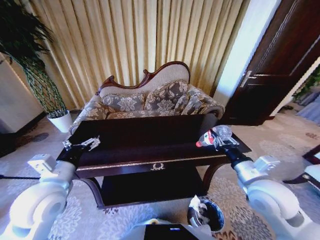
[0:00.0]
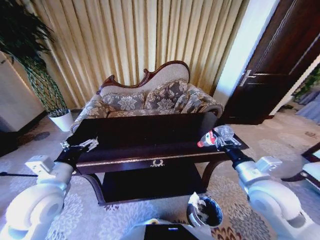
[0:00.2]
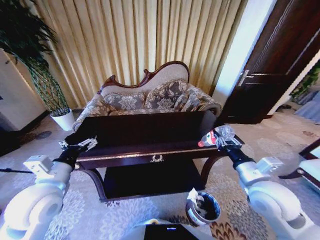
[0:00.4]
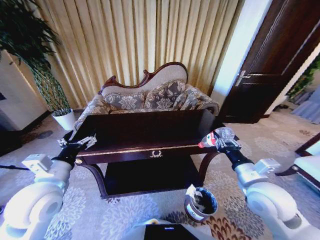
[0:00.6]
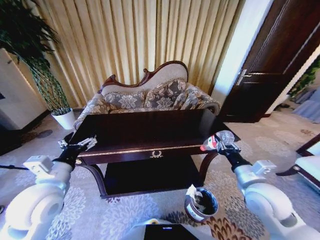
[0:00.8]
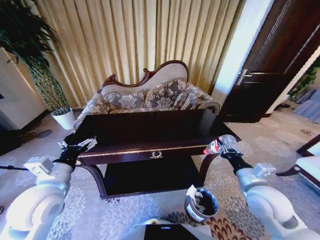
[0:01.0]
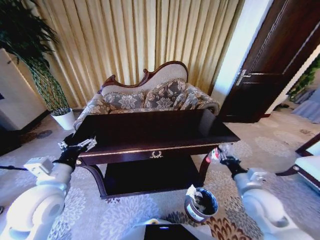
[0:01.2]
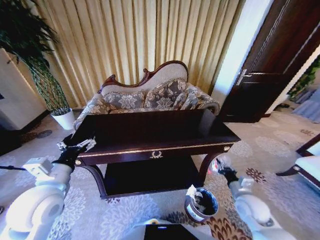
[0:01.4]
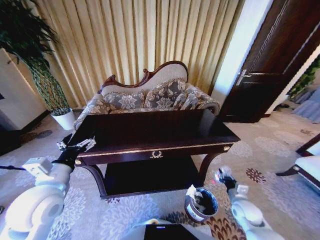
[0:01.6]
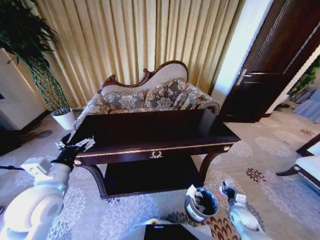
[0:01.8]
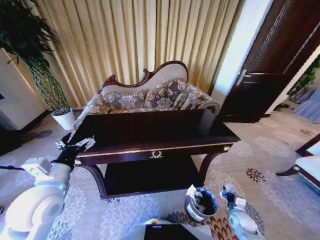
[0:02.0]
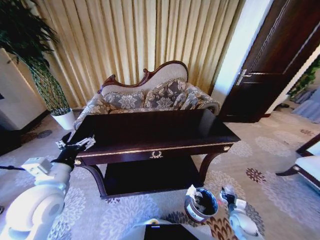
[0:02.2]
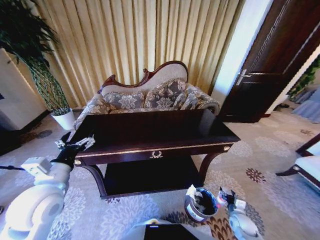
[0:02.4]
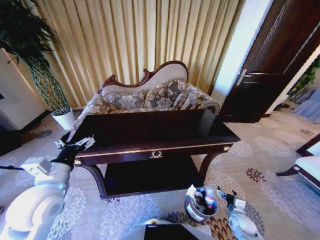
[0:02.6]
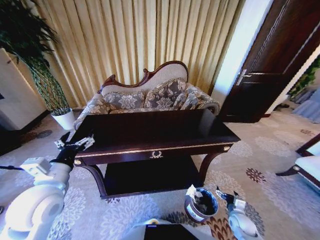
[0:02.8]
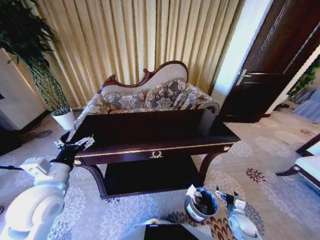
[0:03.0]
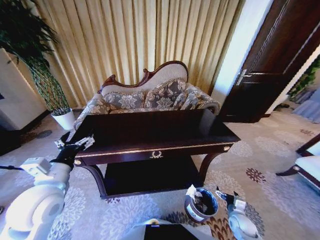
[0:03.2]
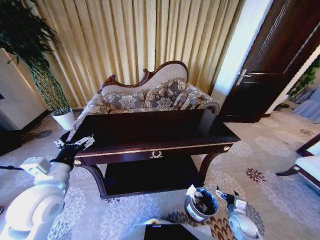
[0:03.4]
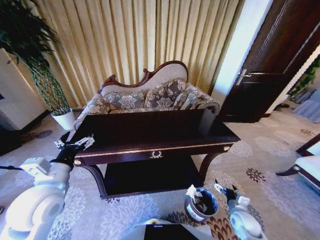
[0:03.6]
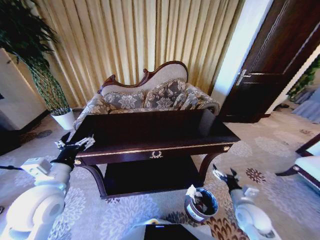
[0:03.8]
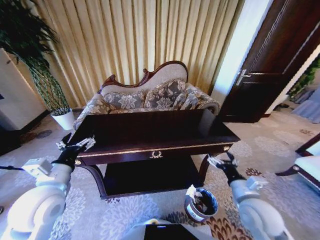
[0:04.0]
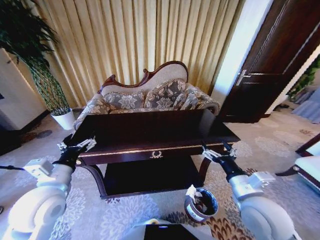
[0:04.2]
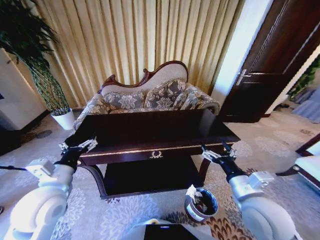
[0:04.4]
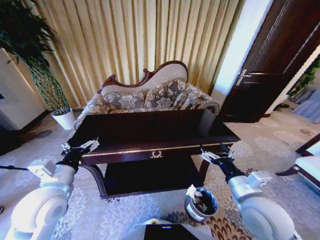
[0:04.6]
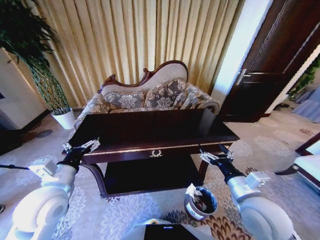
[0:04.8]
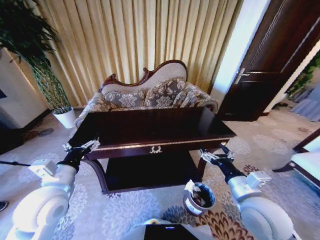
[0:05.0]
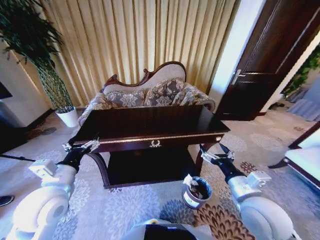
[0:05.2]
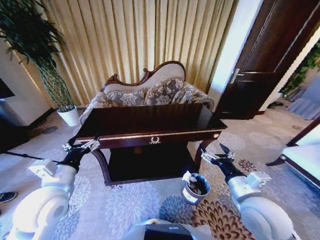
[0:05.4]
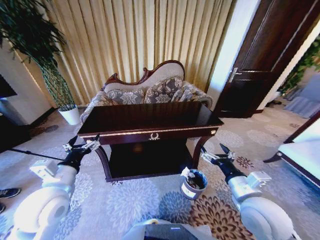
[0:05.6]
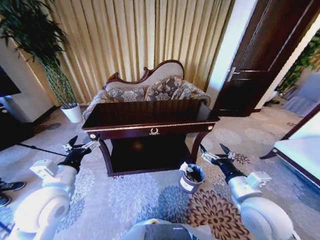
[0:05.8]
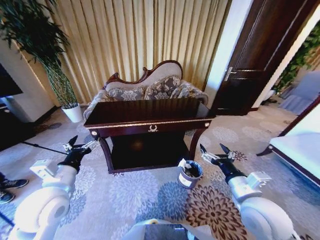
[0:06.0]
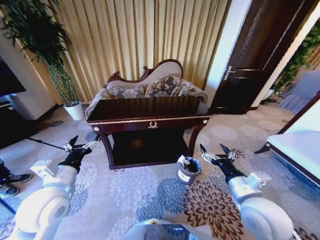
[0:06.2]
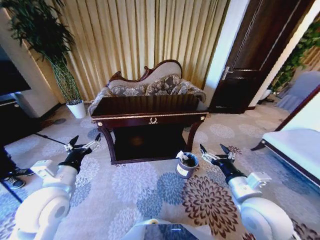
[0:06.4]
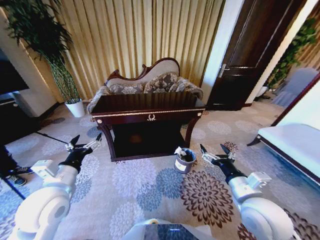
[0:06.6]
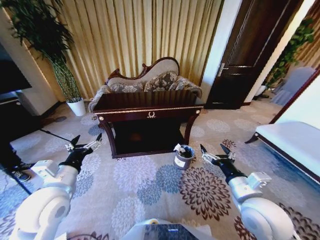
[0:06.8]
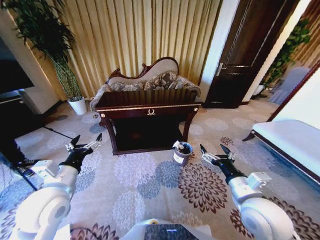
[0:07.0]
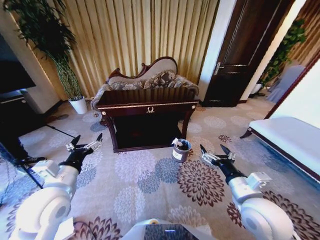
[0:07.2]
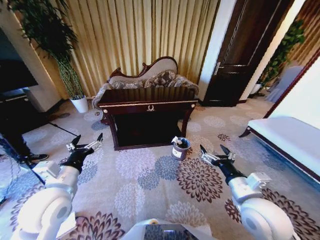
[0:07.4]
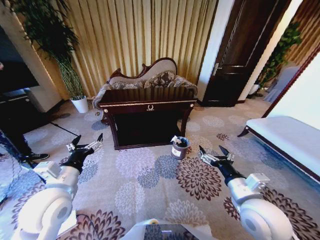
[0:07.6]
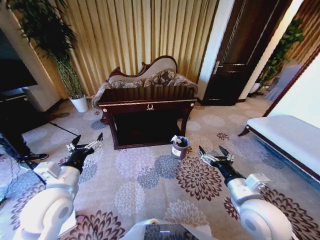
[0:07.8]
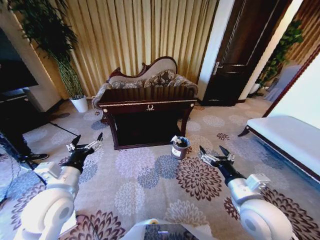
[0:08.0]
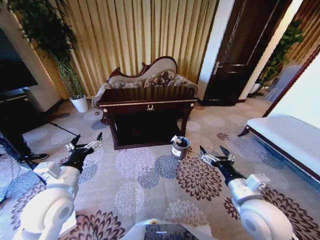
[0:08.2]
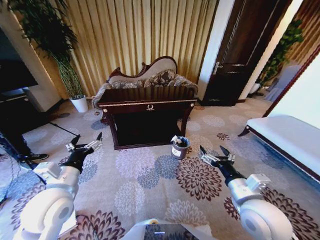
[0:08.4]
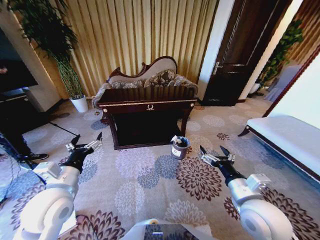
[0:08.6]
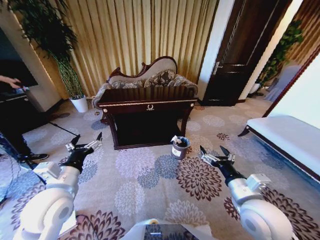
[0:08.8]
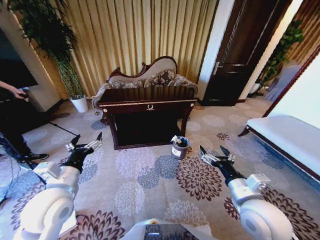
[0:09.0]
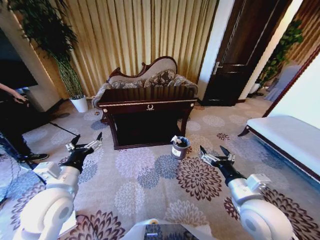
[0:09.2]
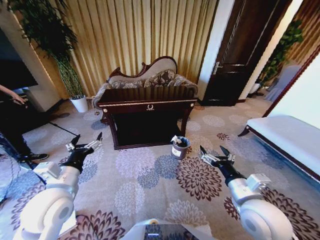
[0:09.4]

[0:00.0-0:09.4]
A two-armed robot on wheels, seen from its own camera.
Task of the whole recording: Move to the front of the table and place the trash on the table into the trash bin.
0:00.0 to 0:01.6: The right gripper is displaced downward by some 25 cm.
0:01.6 to 0:03.2: The right gripper heads downward, covering about 10 cm, and opens its fingers.
0:03.2 to 0:04.8: The right gripper moves upward and to the left, some 35 cm.
0:07.8 to 0:09.4: Neither gripper changes place.

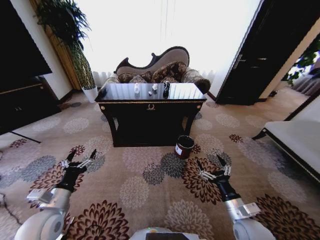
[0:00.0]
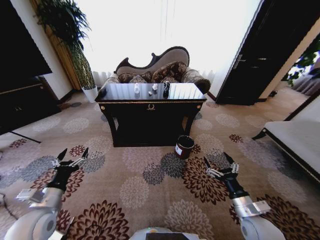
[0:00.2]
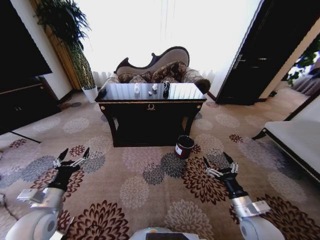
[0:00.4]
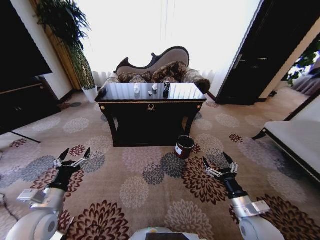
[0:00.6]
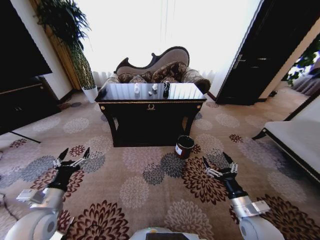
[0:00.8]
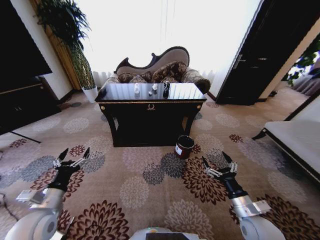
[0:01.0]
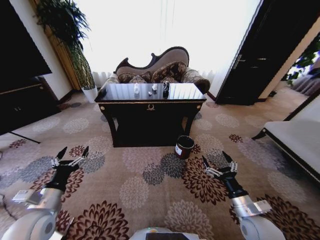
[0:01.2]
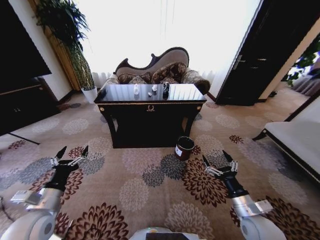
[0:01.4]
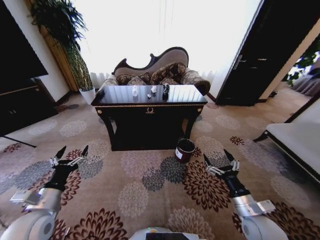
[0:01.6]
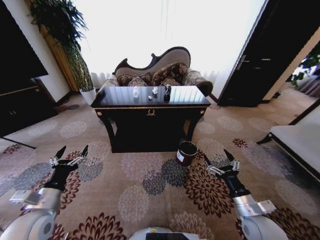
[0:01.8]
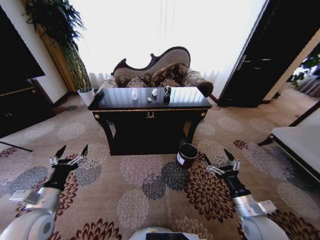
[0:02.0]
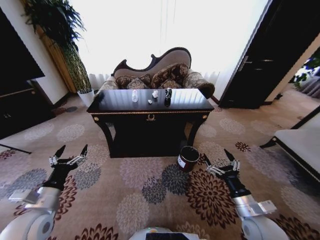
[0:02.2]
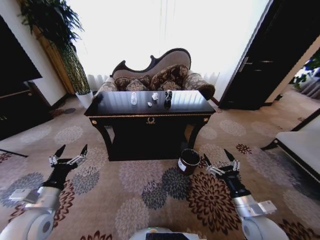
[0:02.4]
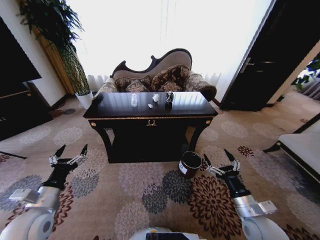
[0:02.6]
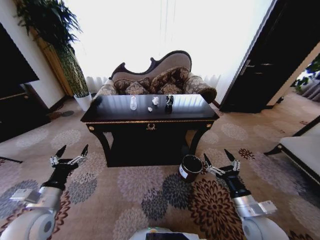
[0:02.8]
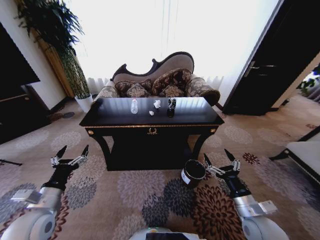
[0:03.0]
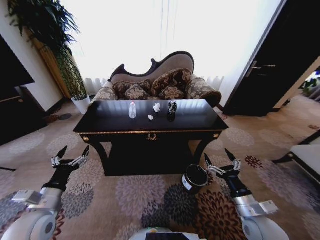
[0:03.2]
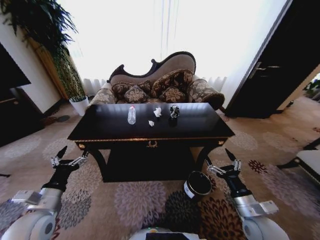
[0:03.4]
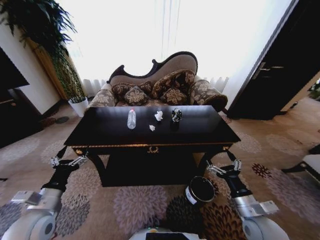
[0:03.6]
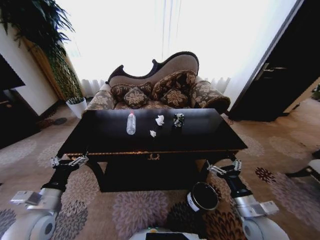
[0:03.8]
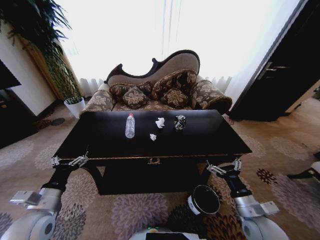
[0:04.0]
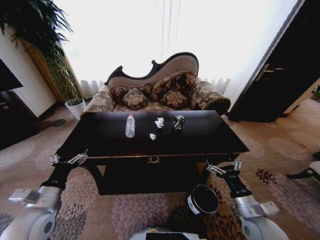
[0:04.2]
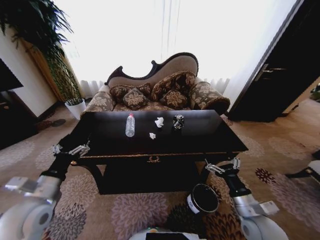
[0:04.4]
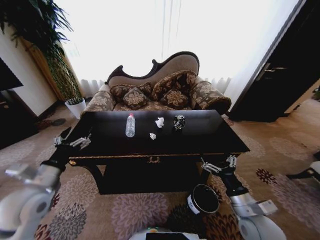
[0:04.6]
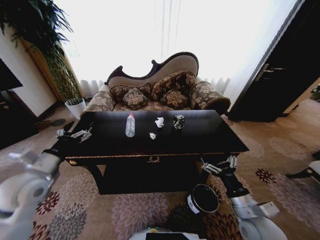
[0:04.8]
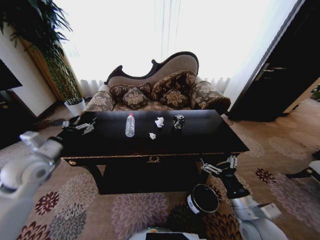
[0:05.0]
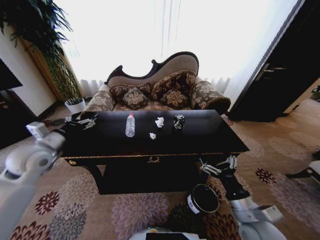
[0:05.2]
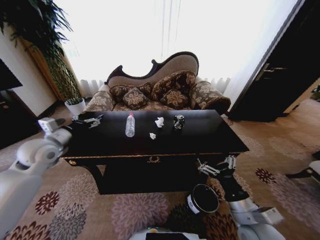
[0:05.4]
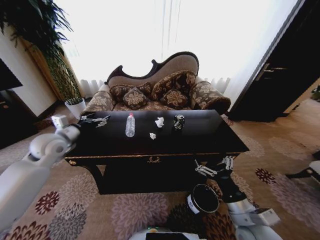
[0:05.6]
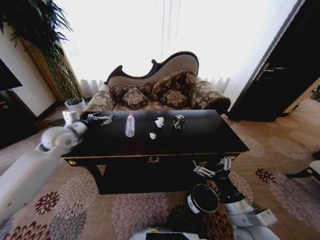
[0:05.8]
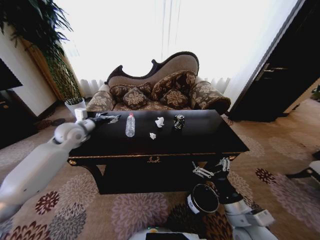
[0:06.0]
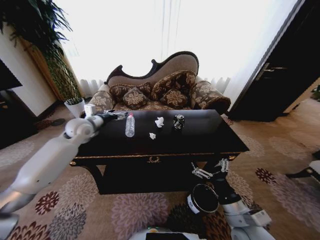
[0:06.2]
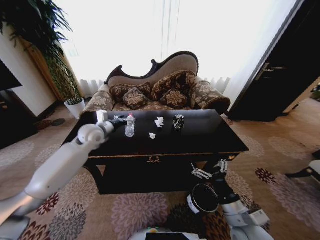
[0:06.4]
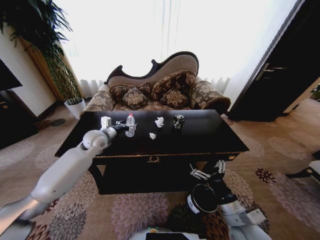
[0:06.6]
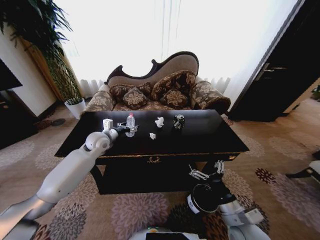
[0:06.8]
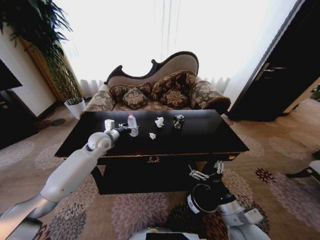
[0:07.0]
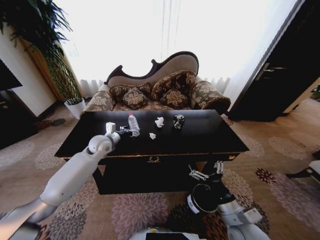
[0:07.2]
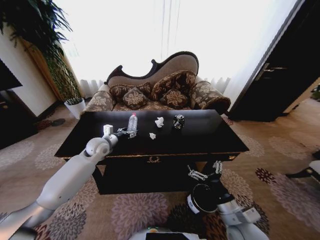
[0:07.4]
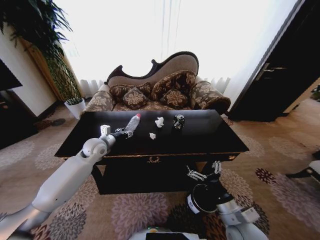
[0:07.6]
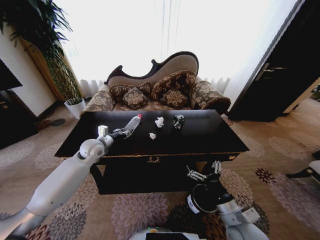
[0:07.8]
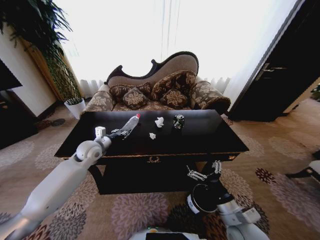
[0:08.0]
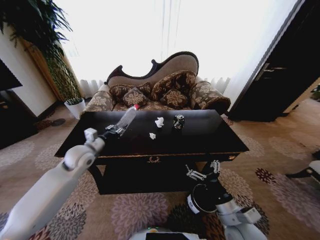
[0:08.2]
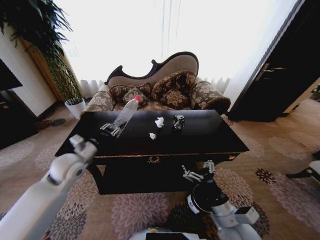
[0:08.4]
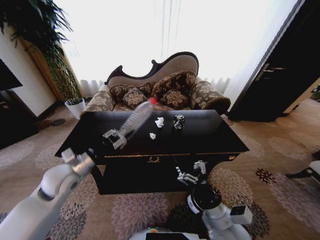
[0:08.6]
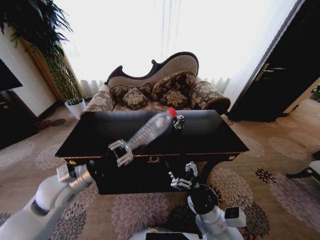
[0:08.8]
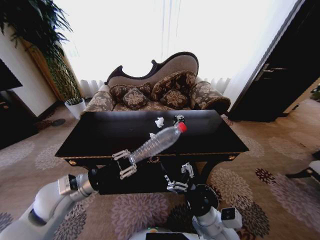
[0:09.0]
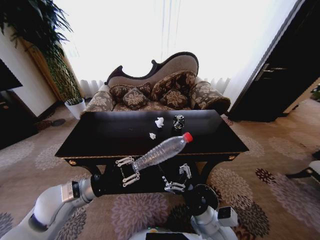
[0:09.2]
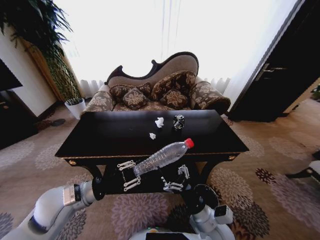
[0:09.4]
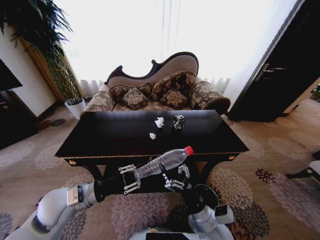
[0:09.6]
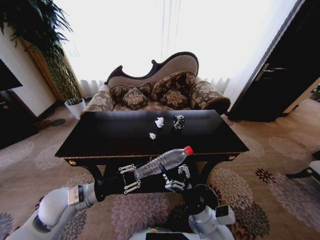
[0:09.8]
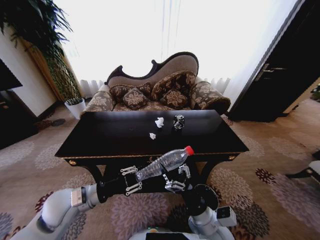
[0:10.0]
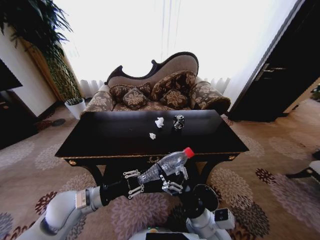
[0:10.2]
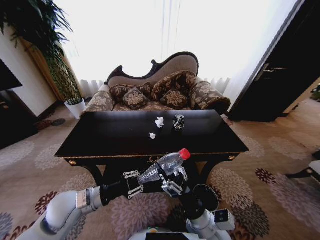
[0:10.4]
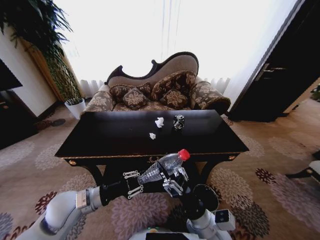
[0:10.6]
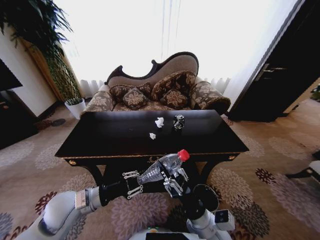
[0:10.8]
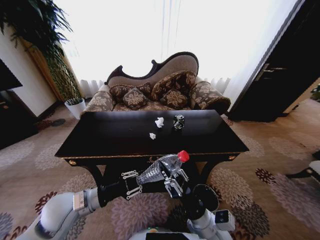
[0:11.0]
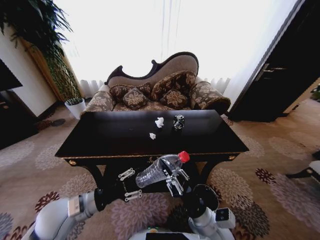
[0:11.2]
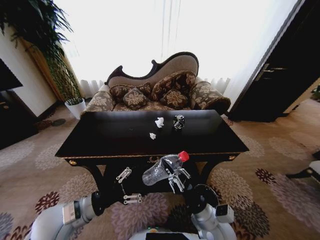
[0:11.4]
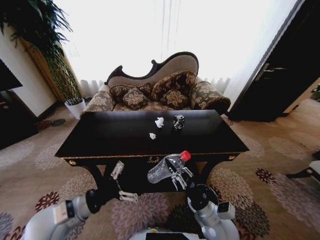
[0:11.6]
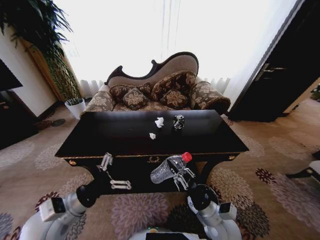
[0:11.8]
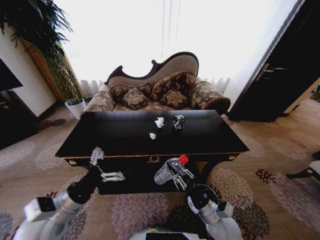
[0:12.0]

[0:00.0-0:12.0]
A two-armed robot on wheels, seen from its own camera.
Task of the whole recording: Move to the front of the table and place the trash on the table into the trash bin.
0:04.4 to 0:06.0: The left gripper goes about 25 cm forward. The right gripper travels to the left by roughly 5 cm.
0:06.0 to 0:07.6: The left gripper heads downward and to the right, covering some 10 cm, and closes.
0:07.6 to 0:09.0: The right gripper shifts roughly 10 cm to the left. Meanwhile the left gripper heads backward, covering approximately 20 cm, and closes up.
0:09.0 to 0:10.4: The grippers move only a little.
0:10.4 to 0:12.0: The left gripper moves approximately 5 cm, and opens its fingers. Meanwhile the right gripper shifts roughly 10 cm to the right and downward, and closes up.

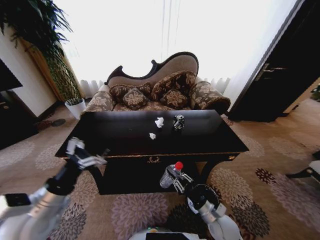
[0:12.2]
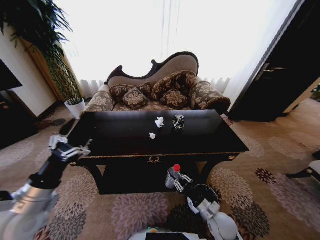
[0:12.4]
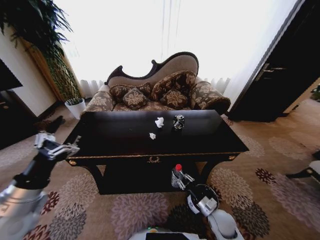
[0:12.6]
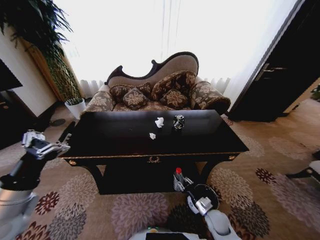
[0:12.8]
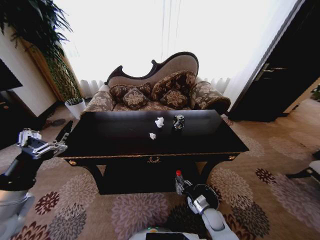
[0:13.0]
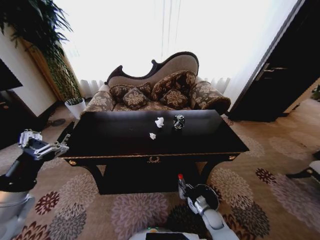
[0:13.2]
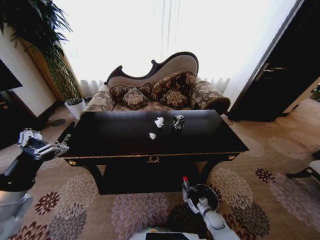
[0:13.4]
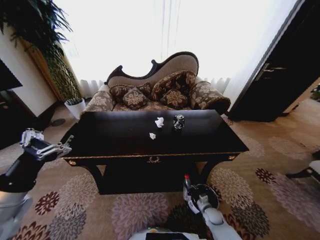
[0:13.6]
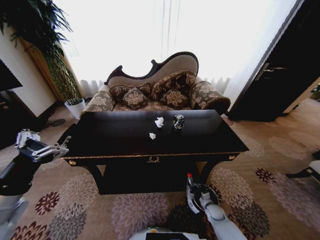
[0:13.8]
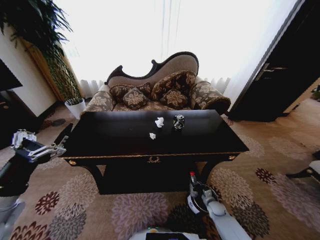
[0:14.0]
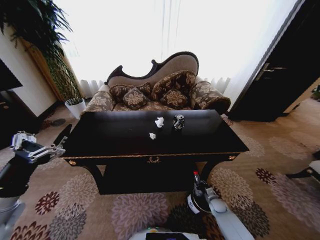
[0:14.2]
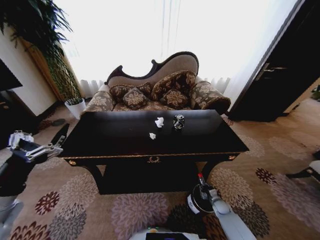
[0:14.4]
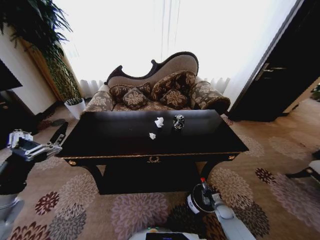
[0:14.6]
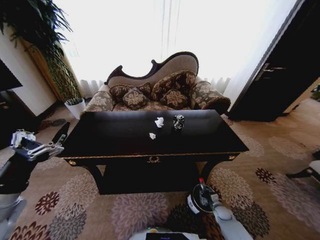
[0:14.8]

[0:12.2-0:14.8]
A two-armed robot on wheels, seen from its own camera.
Task of the whole recording: Move to the front of the table and place the trash on the table into the trash bin.
0:12.2 to 0:13.4: The left gripper shifts about 5 cm to the left. Meanwhile the right gripper travels downward by about 20 cm.
0:13.4 to 0:14.8: The right gripper is displaced to the right by roughly 10 cm.
